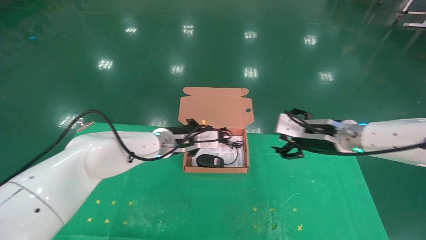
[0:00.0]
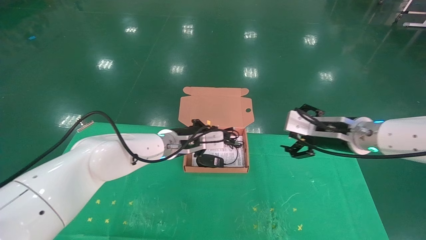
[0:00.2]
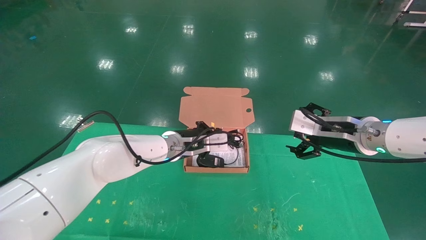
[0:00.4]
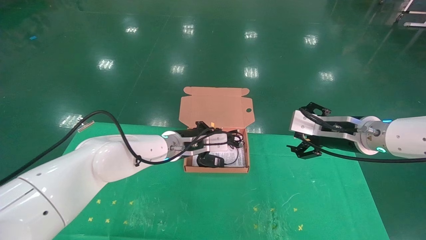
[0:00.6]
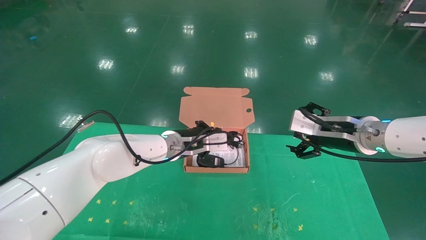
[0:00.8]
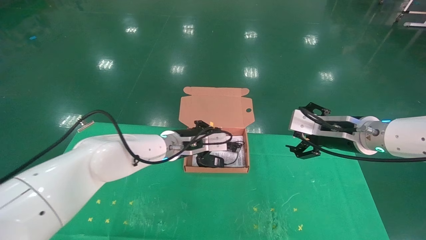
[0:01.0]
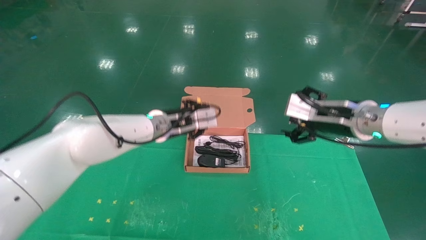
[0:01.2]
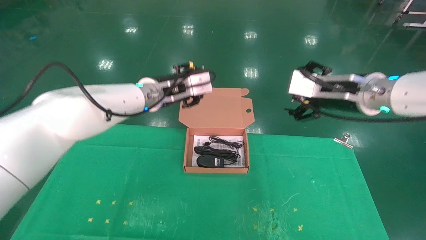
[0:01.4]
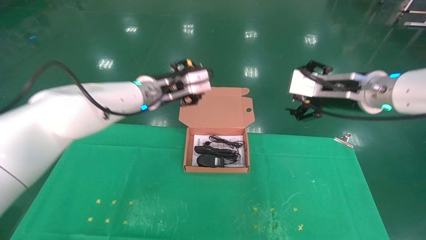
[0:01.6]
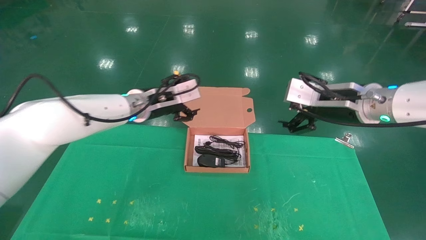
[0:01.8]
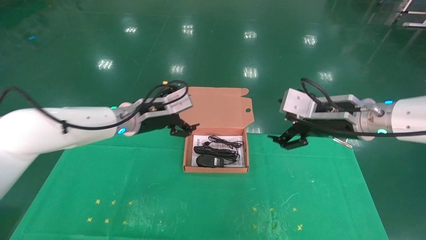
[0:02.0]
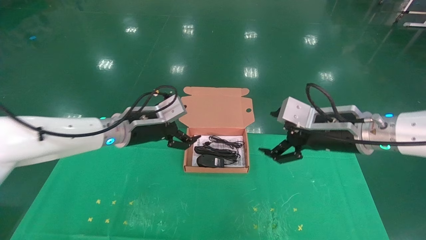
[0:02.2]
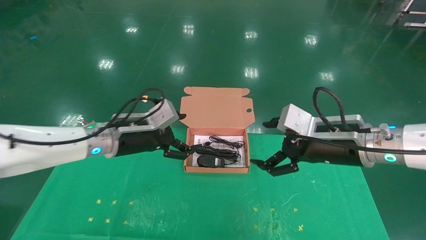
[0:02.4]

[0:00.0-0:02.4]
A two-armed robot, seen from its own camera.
Task of the whole recording: grasp data cable left put into box grasp mouse right put into box.
0:00.0 to 0:01.2: The right gripper moves some 5 cm. The left gripper heads upward, covering about 5 cm.
0:01.2 to 0:02.4: The right gripper moves backward, about 5 cm; the left gripper travels to the left and backward by roughly 10 cm, and opens its fingers.
